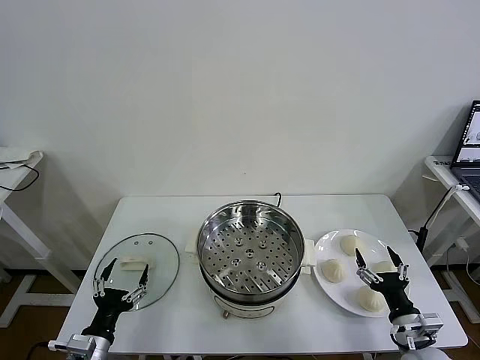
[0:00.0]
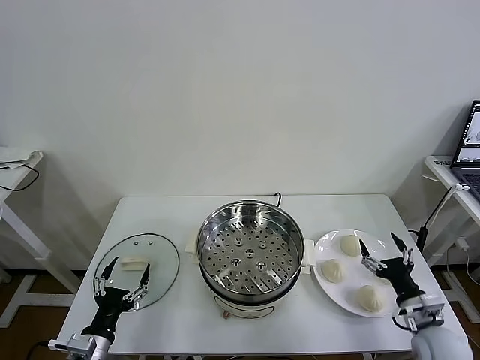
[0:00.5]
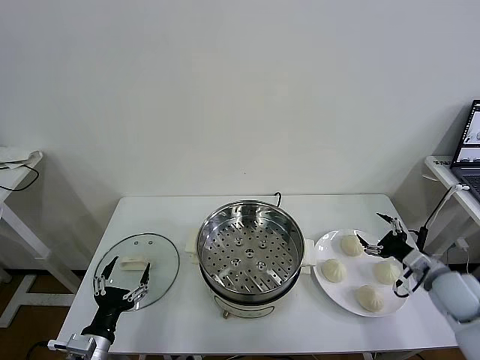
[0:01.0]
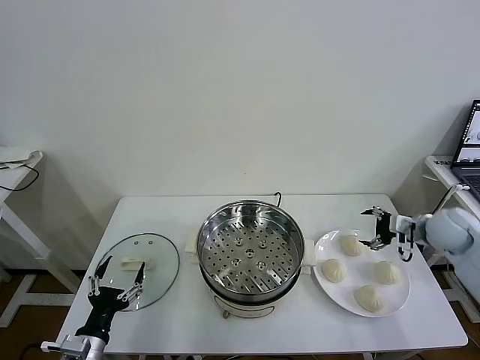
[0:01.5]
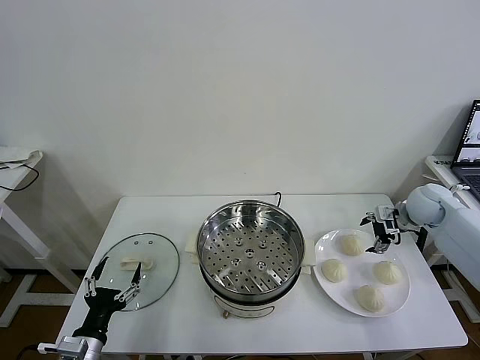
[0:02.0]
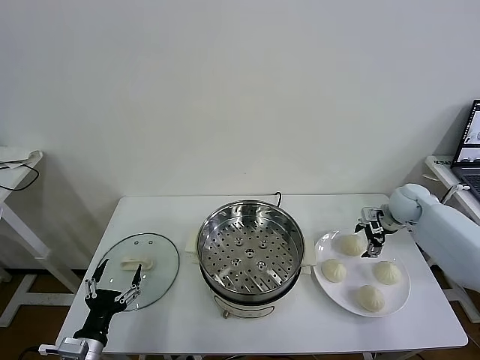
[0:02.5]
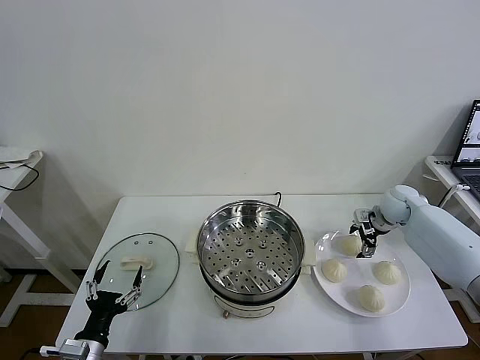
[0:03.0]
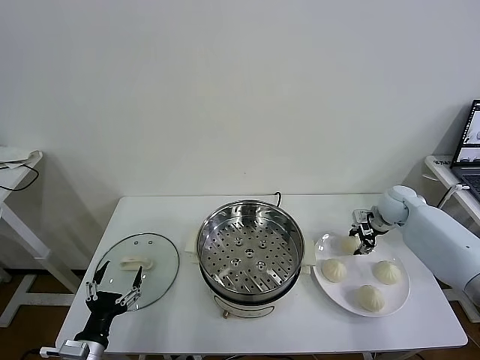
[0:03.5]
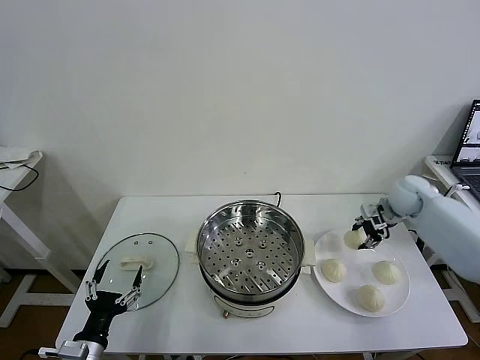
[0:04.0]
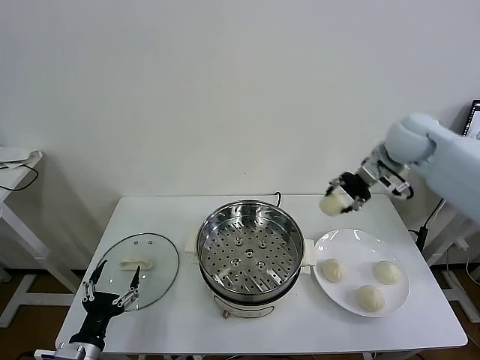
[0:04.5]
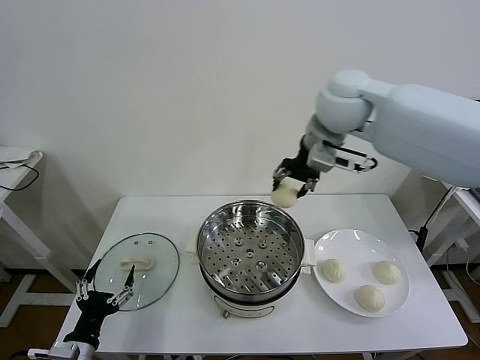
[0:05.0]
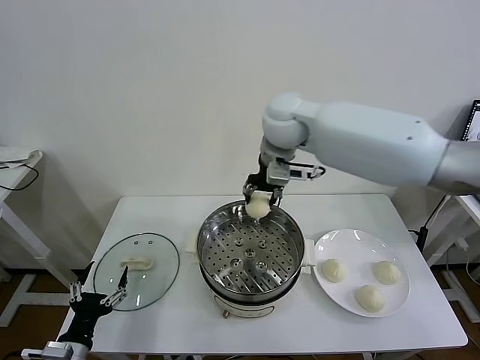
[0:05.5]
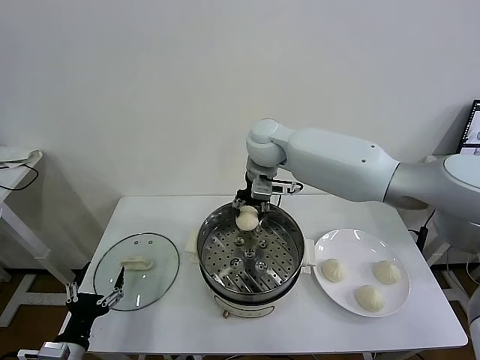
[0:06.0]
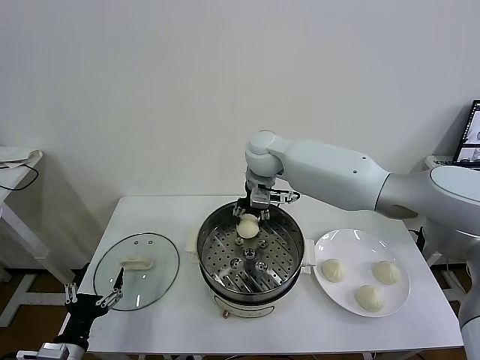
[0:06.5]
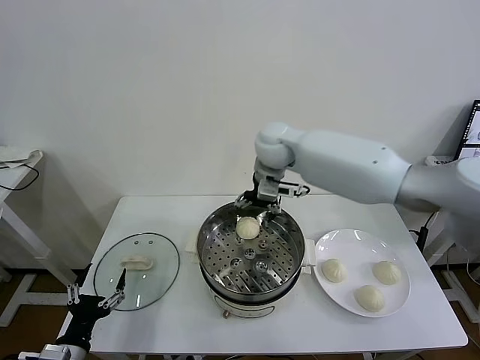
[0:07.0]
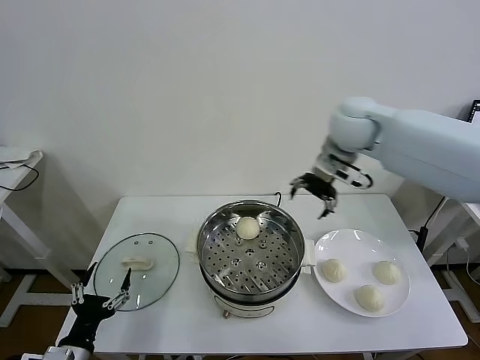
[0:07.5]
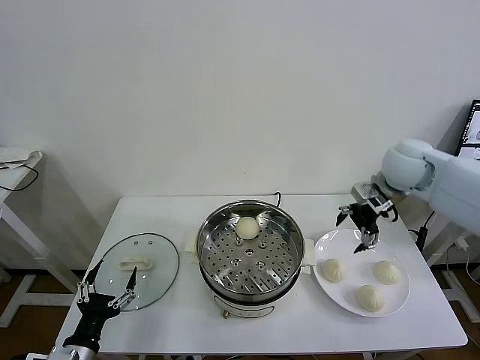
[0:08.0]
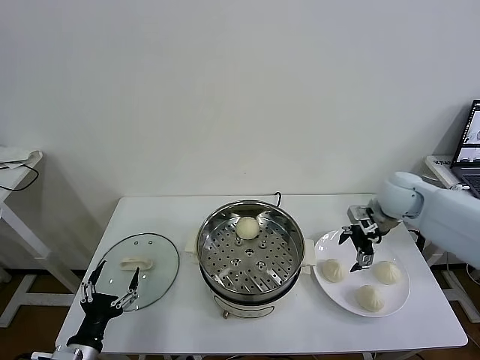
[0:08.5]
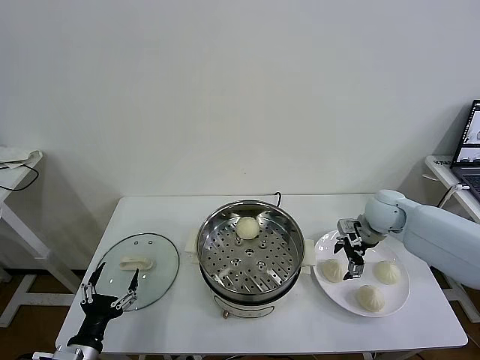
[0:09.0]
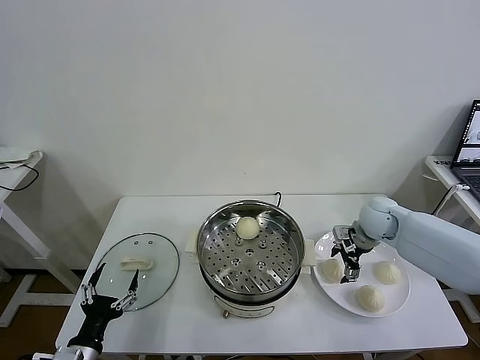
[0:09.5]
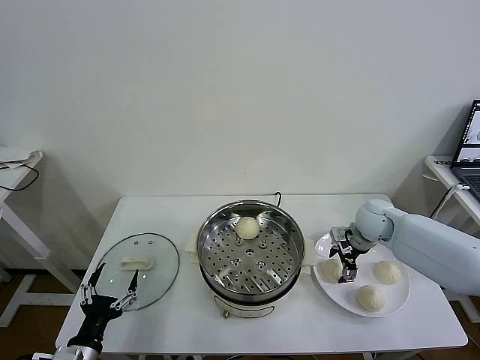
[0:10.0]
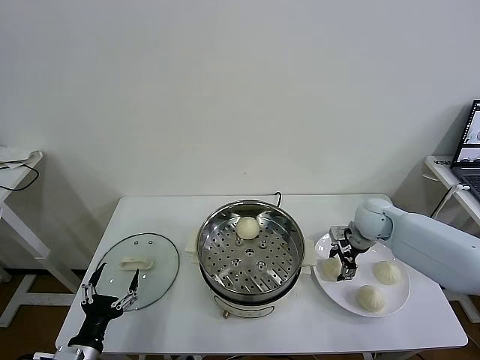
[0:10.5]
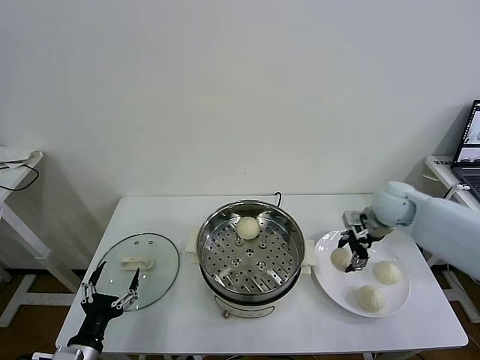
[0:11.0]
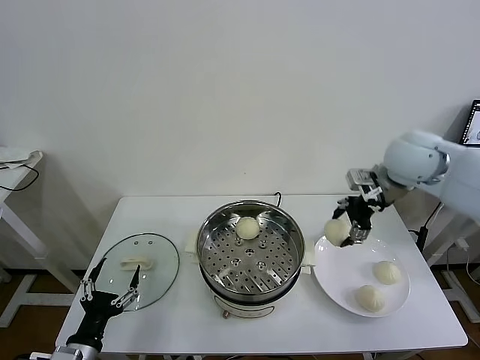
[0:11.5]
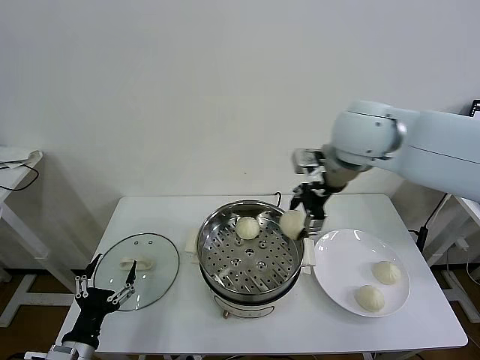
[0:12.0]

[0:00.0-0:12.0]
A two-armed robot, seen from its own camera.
Task of the whole recording: take steamed baozi put them in steamer then cover it.
Step, 0.0 to 3.5 s: Grasp the baozi in the plate with right gripper.
Step, 4.0 to 6.5 s: Place the baozi on the steamer with right gripper.
Step, 7.0 to 10.0 s: Grasp the baozi in the plate with right gripper.
2.0 to 4.0 s: The right gripper shifts by approximately 5 cm, and closes.
4.0 to 6.0 s: The right gripper shifts about 35 cm to the left.
6.0 to 8.0 s: The right gripper heads to the right, covering roughly 30 cm, and opens its fingers.
8.0 to 10.0 s: The right gripper goes about 15 cm downward.
10.0 to 12.0 s: The right gripper goes roughly 30 cm upward and to the left.

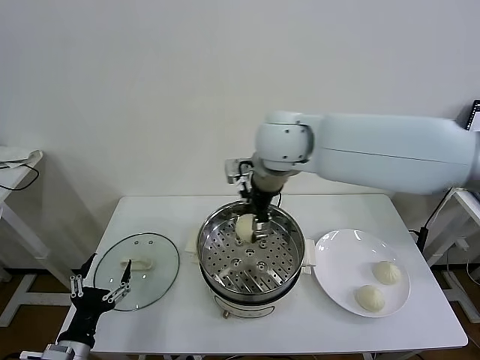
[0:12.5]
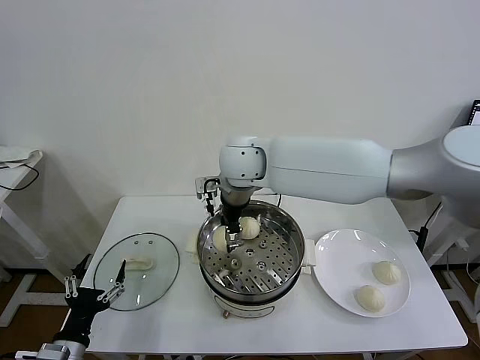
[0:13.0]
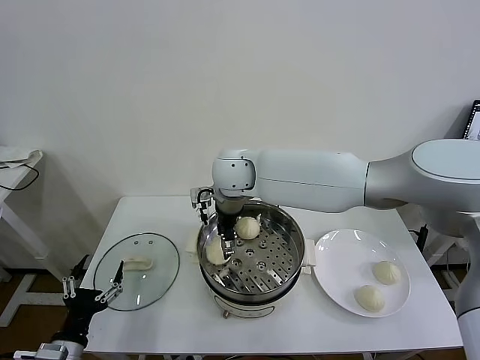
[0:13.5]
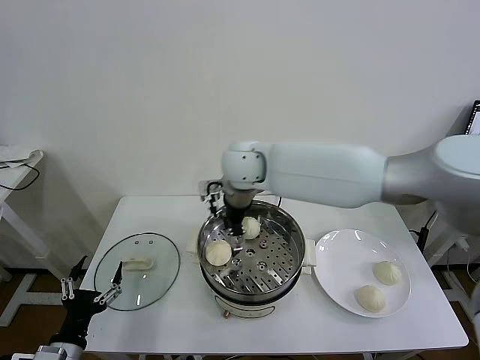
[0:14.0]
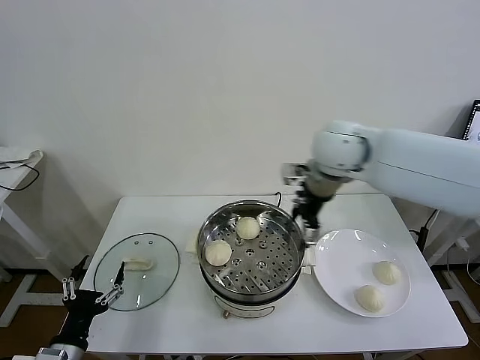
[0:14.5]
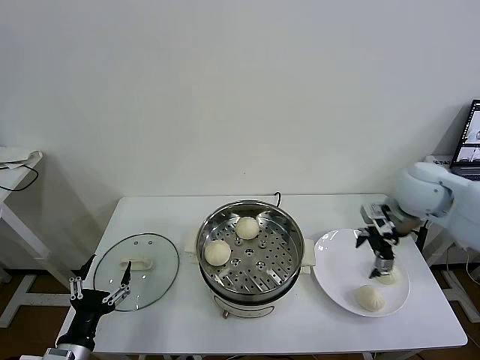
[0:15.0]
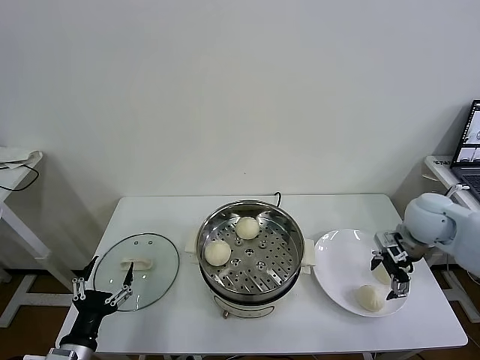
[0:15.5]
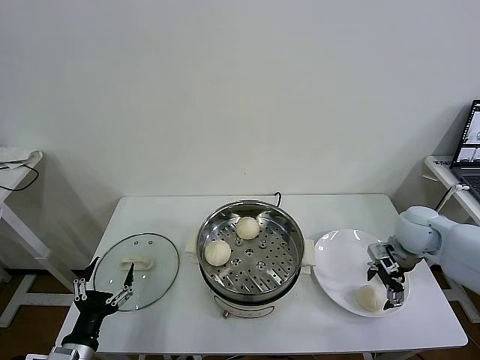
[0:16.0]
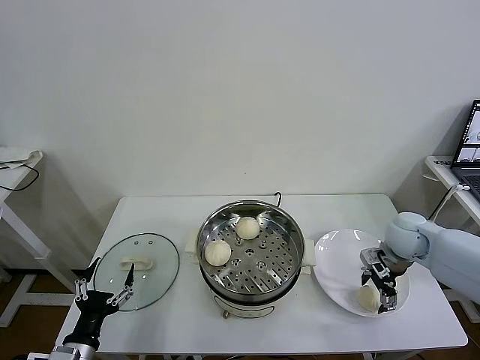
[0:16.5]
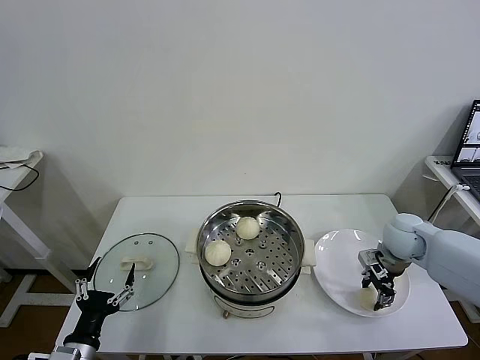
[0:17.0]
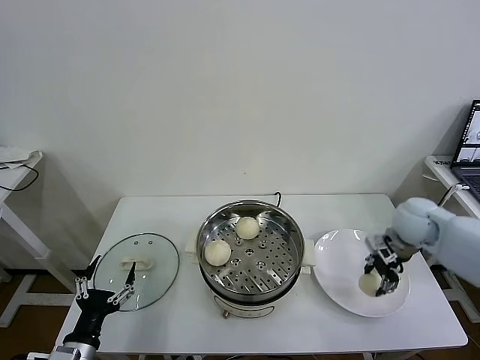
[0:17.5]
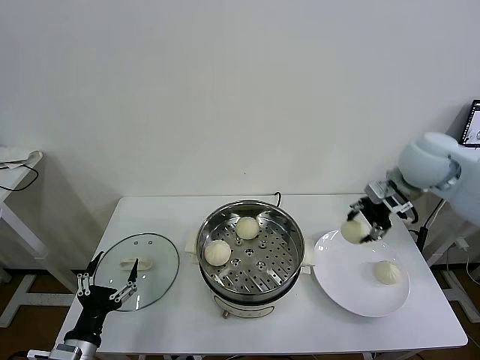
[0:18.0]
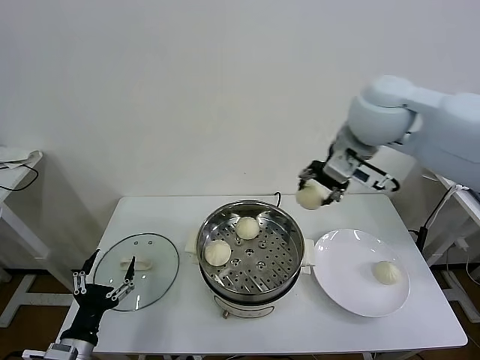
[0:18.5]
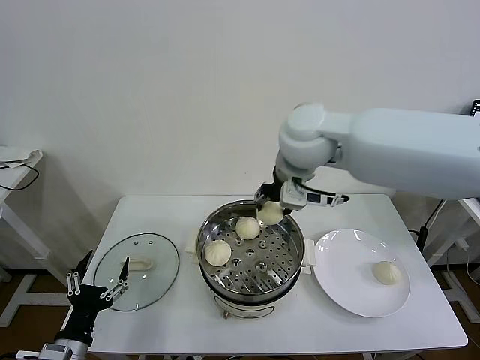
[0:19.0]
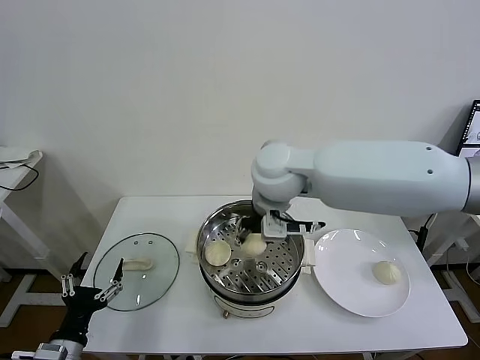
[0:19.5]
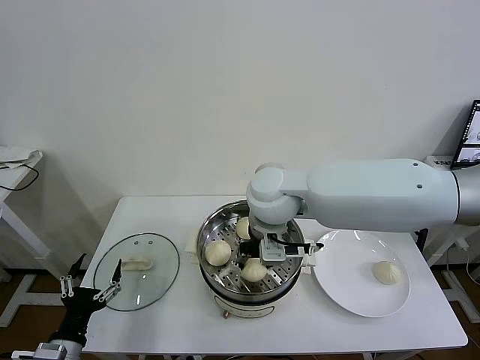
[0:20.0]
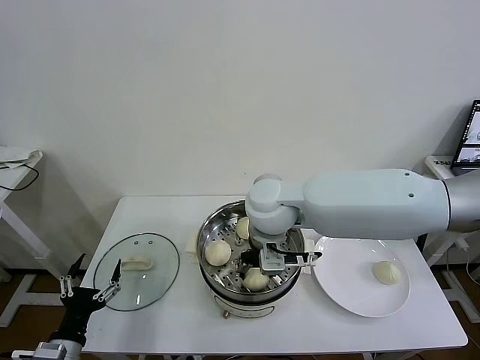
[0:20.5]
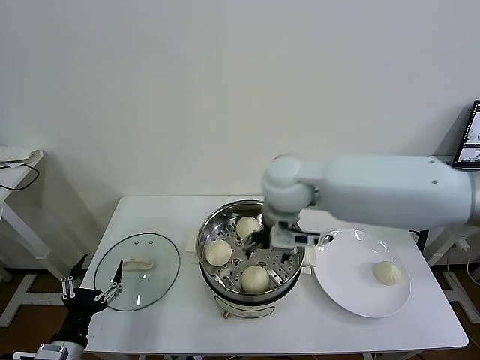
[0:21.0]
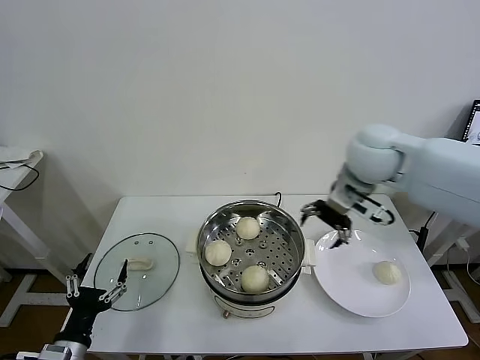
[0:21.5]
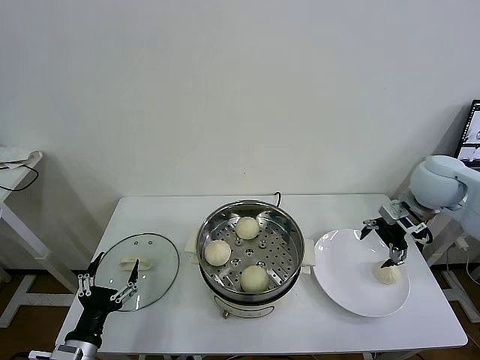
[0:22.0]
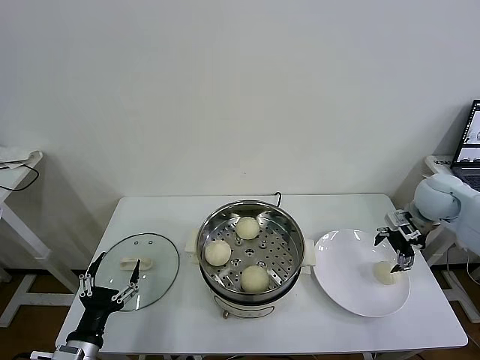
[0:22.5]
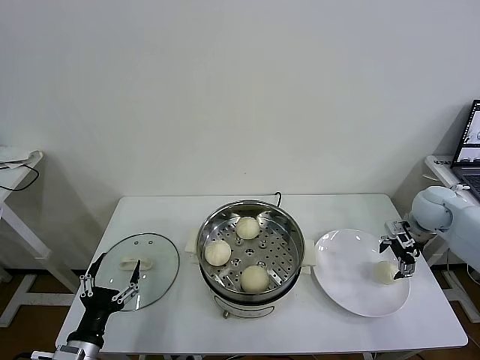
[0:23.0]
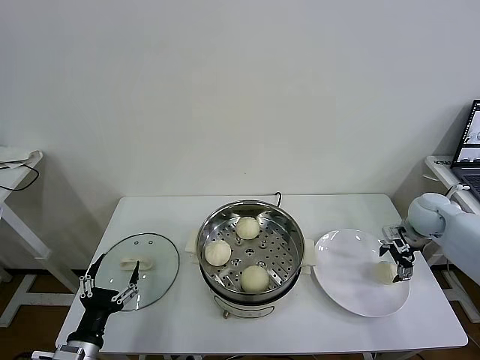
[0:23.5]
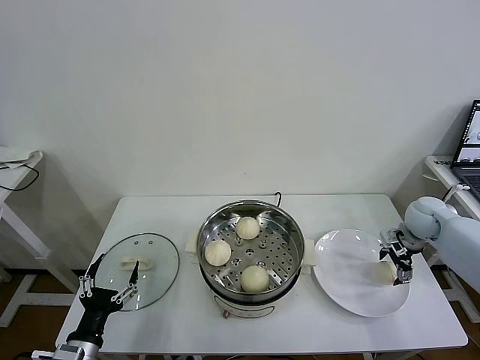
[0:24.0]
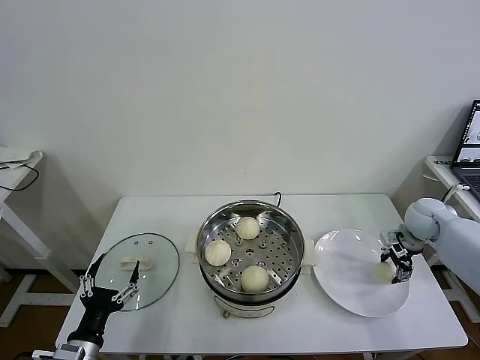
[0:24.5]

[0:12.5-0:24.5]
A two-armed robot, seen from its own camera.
Task of the whole recording: take steamed baozi put them in steamer then cover it.
Step, 14.5 to 17.0 s: Grasp the baozi in the plate with right gripper.
Step, 17.5 to 20.5 s: Place the baozi on the steamer with right gripper.
12.5 to 14.5 s: The right gripper heads to the right, covering roughly 15 cm, and opens its fingers.
14.5 to 16.5 s: The right gripper travels downward and to the right by some 25 cm.
16.5 to 18.5 s: The right gripper heads upward and to the left, covering roughly 35 cm, and closes its fingers.
18.5 to 20.5 s: The right gripper travels downward and to the left by approximately 20 cm.
20.5 to 22.5 s: The right gripper travels to the right by approximately 40 cm, and opens up.
22.5 to 24.5 s: The right gripper moves downward, some 10 cm, and closes its fingers.

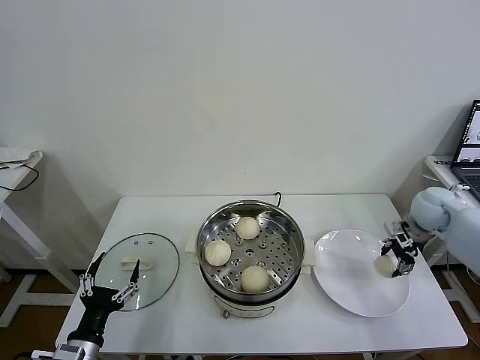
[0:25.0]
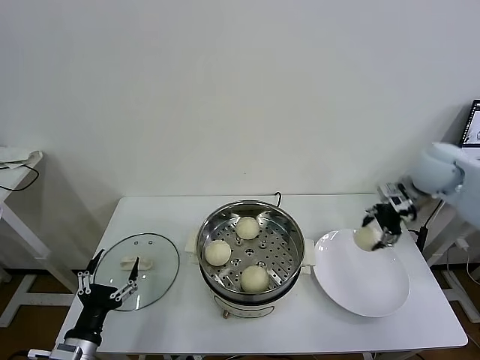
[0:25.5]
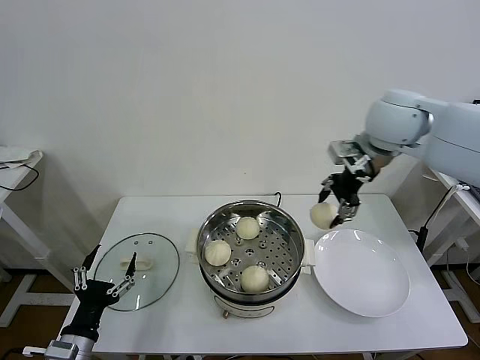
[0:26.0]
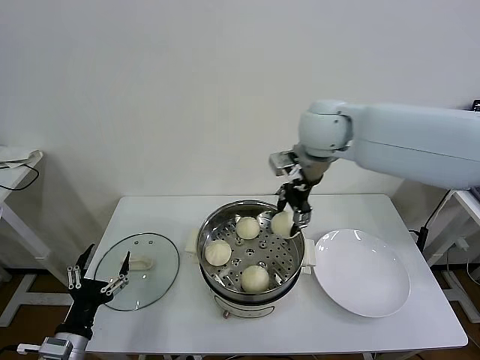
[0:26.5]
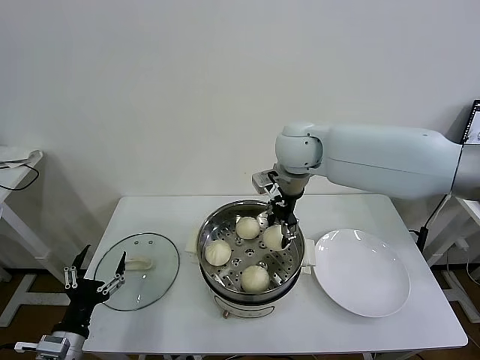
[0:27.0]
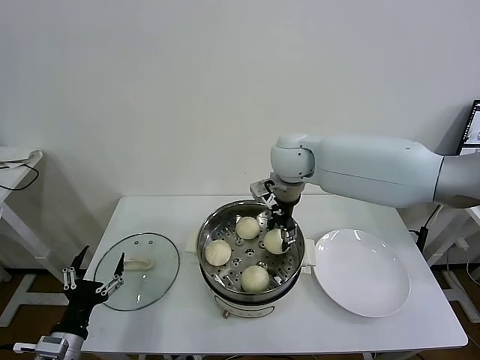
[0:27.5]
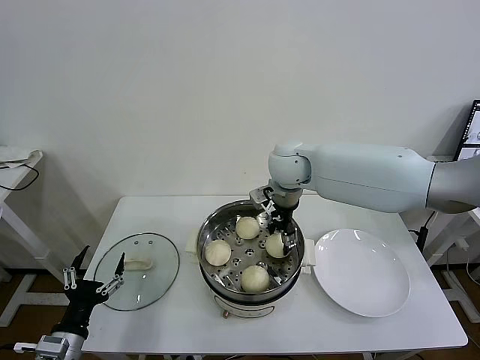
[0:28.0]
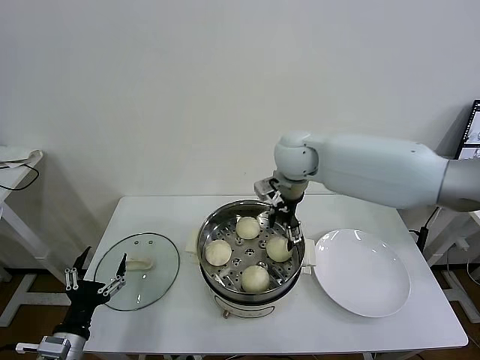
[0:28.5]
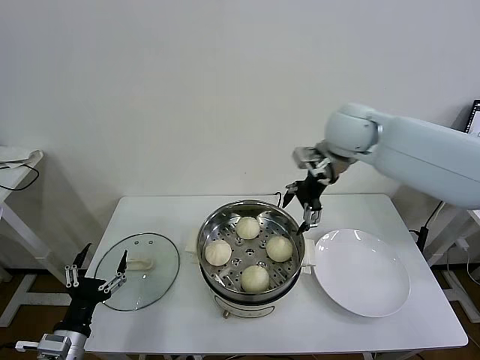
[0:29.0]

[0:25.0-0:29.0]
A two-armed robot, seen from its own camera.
Task of the whole recording: take steamed baozi put them in steamer then cover it.
Step, 25.0 to 28.0 s: Place the baozi on the steamer with right gripper.
25.0 to 27.0 s: The right gripper is displaced to the left and upward by approximately 35 cm.
27.0 to 29.0 s: The right gripper goes approximately 10 cm to the right, and opens up.
